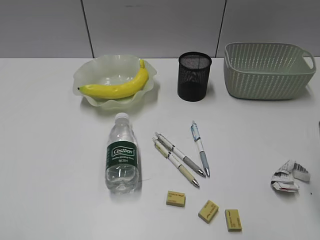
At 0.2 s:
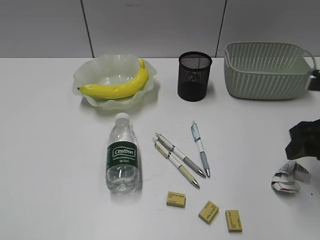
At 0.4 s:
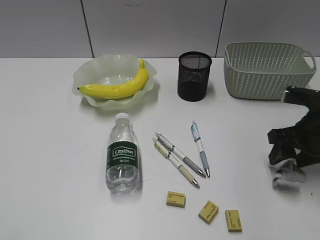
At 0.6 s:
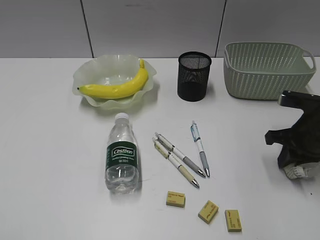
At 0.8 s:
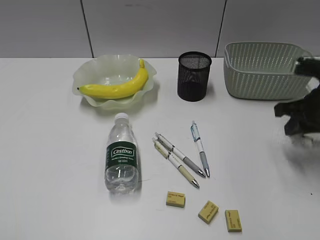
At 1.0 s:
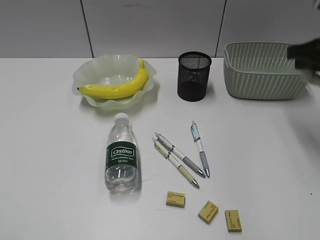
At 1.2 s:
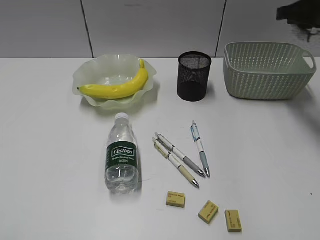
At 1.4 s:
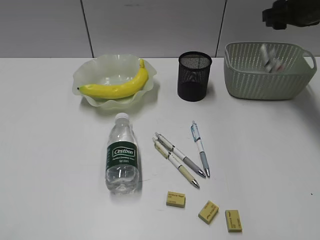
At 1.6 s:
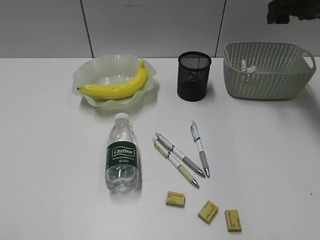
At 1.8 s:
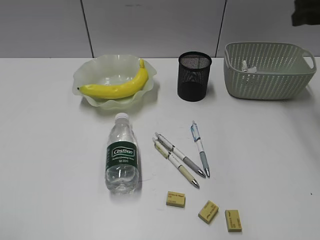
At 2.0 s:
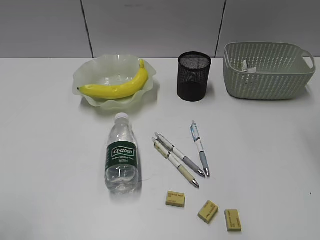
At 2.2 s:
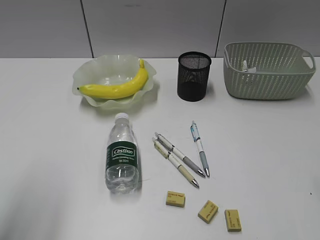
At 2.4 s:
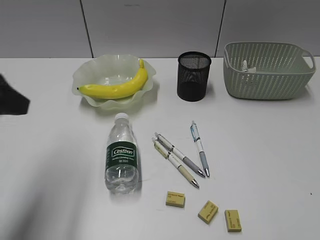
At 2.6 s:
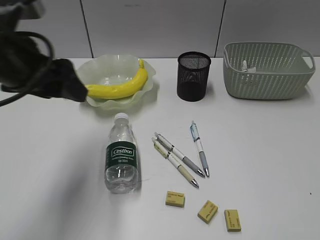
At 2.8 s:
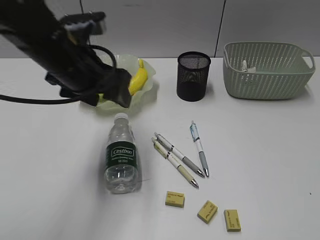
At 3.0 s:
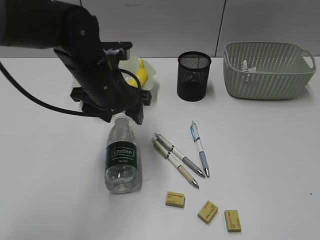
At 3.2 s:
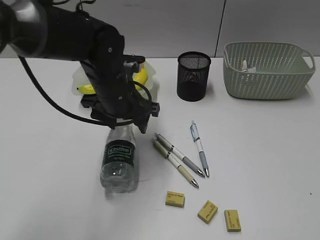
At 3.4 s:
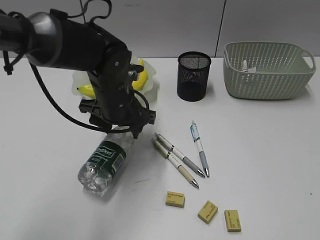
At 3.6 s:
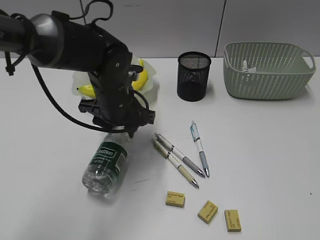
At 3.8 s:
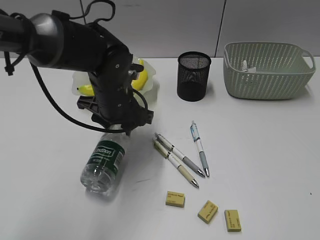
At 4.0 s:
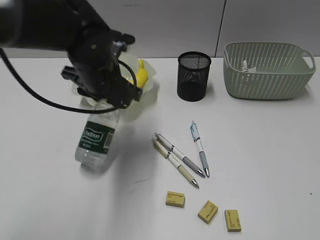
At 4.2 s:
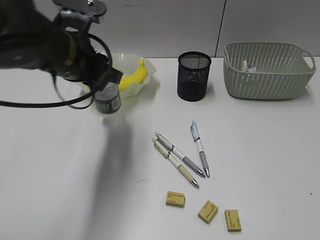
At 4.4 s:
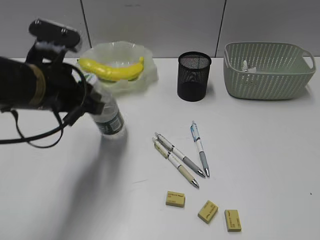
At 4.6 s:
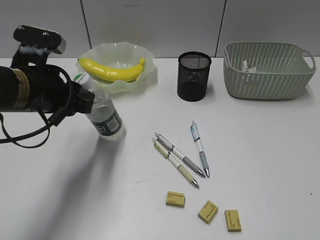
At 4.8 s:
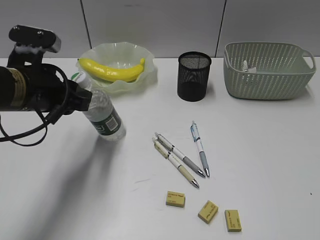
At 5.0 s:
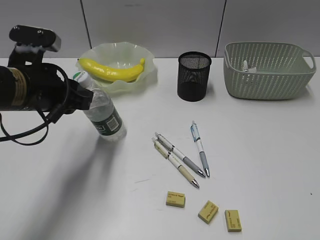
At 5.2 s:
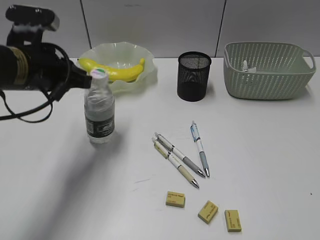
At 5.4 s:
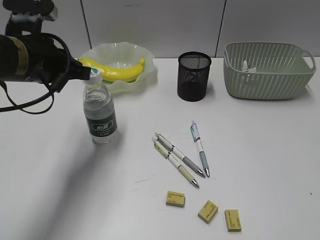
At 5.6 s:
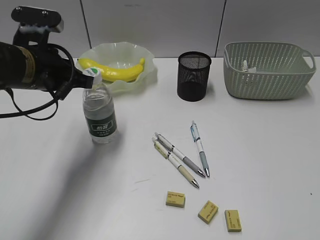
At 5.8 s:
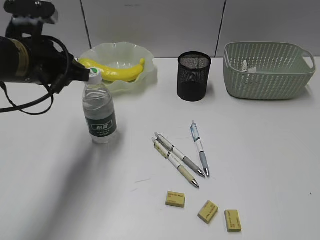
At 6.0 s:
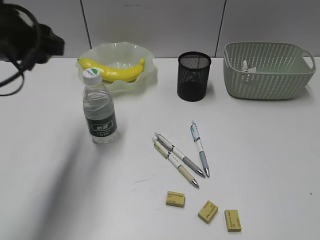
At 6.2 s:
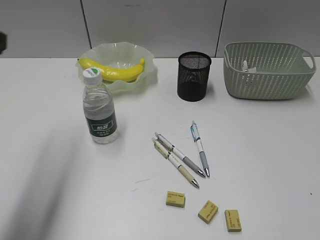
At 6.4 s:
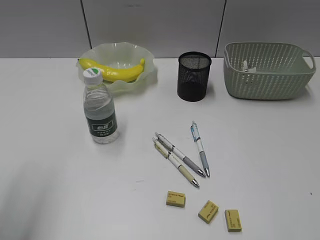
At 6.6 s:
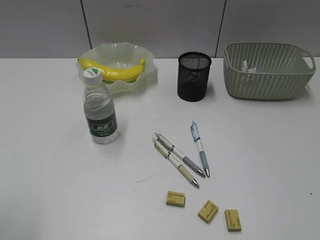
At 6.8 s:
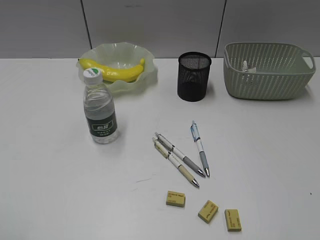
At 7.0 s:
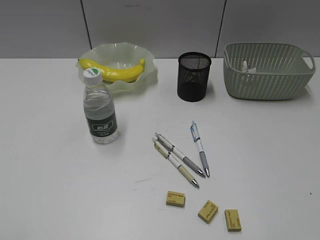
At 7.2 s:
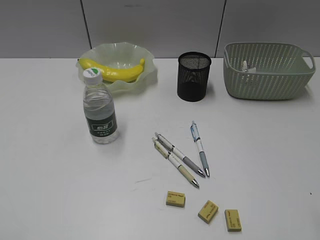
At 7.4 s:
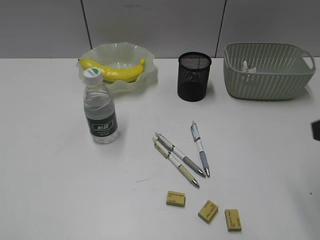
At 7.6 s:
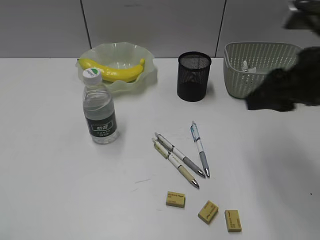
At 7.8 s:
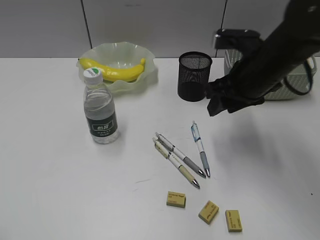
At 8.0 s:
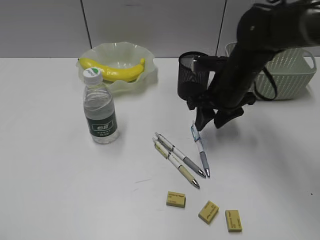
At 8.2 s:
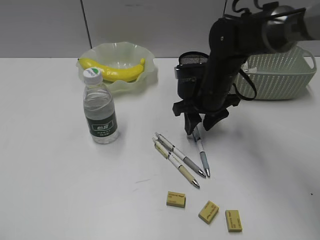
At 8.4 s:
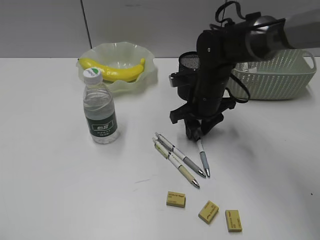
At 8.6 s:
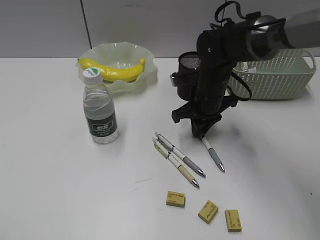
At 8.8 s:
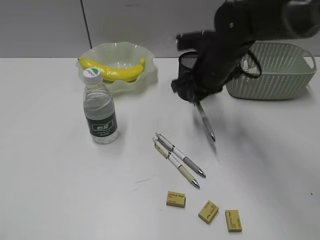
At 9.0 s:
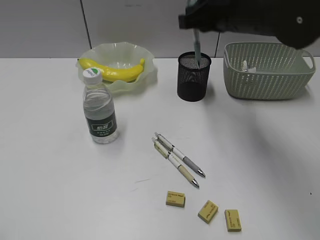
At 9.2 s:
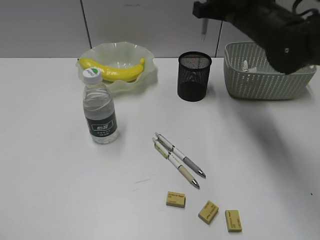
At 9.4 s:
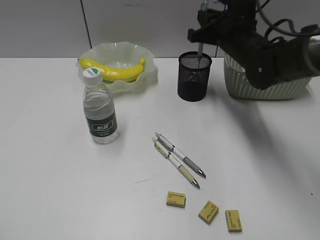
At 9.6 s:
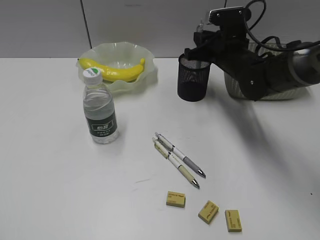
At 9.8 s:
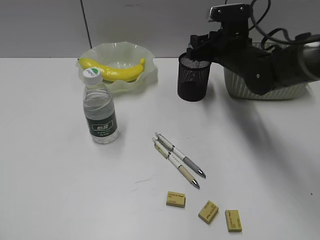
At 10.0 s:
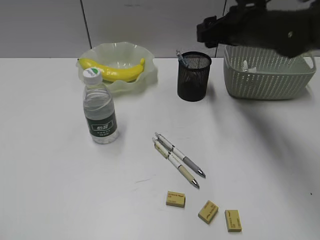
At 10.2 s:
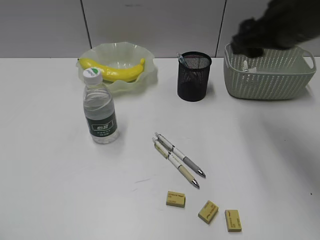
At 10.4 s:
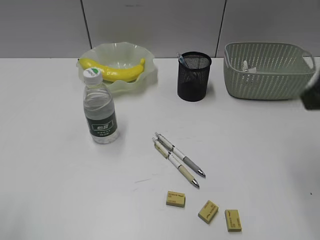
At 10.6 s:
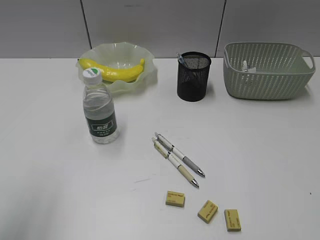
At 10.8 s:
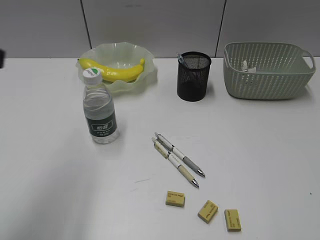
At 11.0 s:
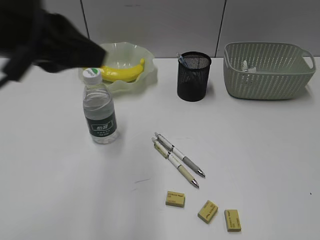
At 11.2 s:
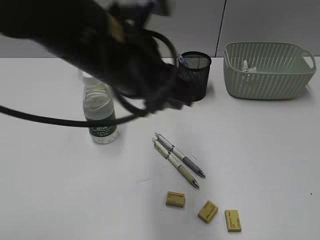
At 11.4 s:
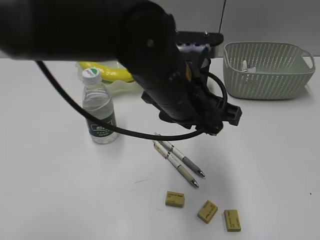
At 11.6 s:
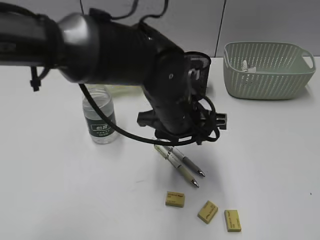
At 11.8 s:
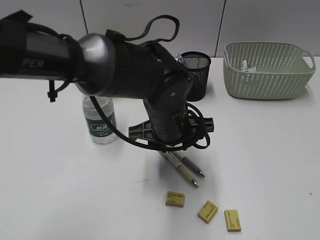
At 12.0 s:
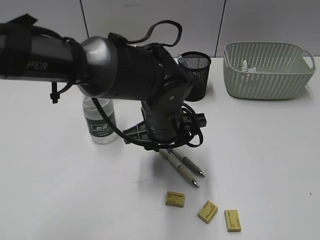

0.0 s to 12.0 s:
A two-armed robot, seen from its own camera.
Step, 0.8 to 1.4 s: Place the waste paper in the basket with right gripper.
Step, 1.6 to 3.6 s: Grasp the bottle with left gripper.
Step, 3.8 to 5.4 s: Stand the bottle with left gripper.
Step, 5.6 to 8.4 s: Grasp the blue pen with right gripper.
Step, 8.6 to 9.8 s: Place the blue pen in pen holder with right gripper.
0.0 to 1.6 s: The right gripper heads forward, covering about 30 cm, and closes and opens again.
1.6 to 3.0 s: The left gripper is displaced forward and to the right by approximately 40 cm, and opens up; the right gripper heads backward, covering some 50 cm.
3.0 to 4.4 s: The left gripper heads to the left and backward, covering approximately 10 cm, goes upward and returns, about 5 cm each way, and closes its fingers.
4.4 to 6.0 s: The left gripper goes about 5 cm upward, and closes, then reopens.
6.0 to 7.6 s: The right gripper shifts roughly 25 cm forward, while the left gripper moves backward and to the left, roughly 30 cm.
7.6 to 9.0 s: The right gripper moves forward and to the left, some 15 cm, moves about 15 cm downward and comes back, and closes.
9.0 to 10.4 s: The right gripper goes some 20 cm backward and to the right, and opens.
10.4 to 12.0 s: The left gripper goes roughly 40 cm to the right, forward and downward; the right gripper shifts about 25 cm backward.

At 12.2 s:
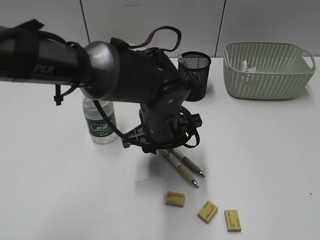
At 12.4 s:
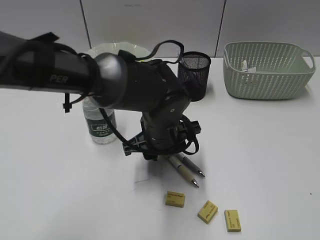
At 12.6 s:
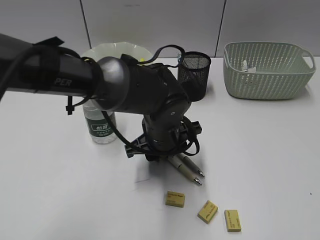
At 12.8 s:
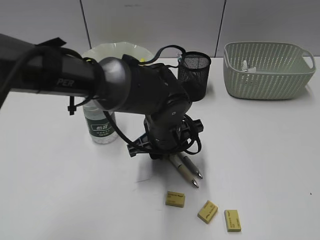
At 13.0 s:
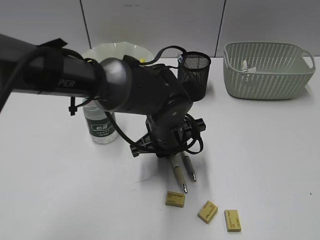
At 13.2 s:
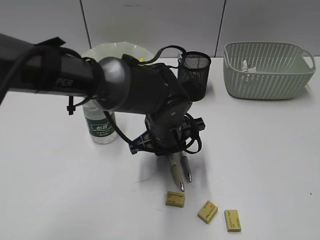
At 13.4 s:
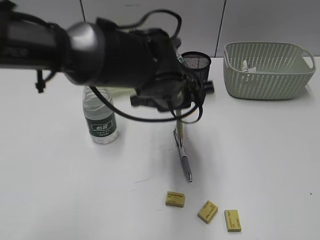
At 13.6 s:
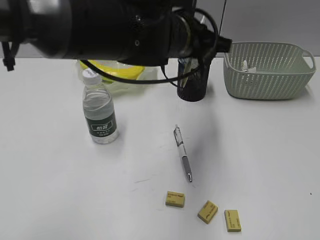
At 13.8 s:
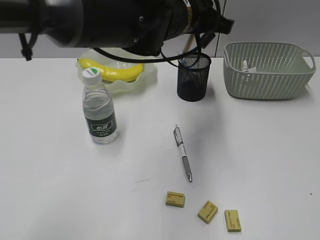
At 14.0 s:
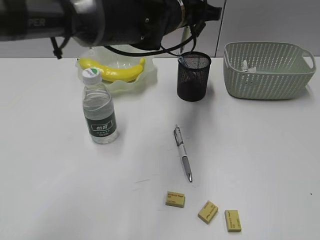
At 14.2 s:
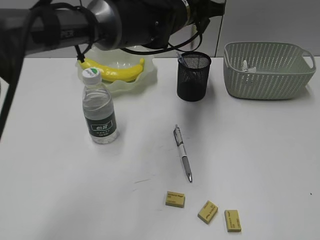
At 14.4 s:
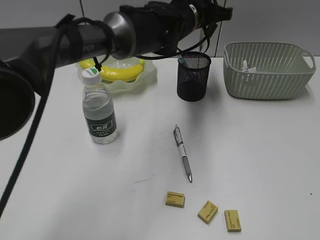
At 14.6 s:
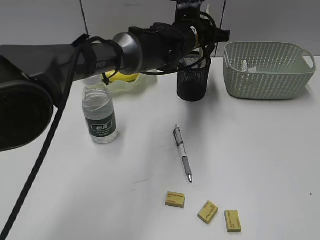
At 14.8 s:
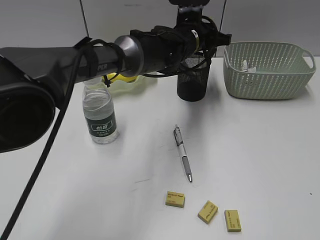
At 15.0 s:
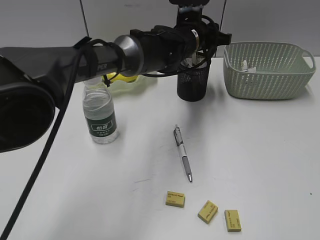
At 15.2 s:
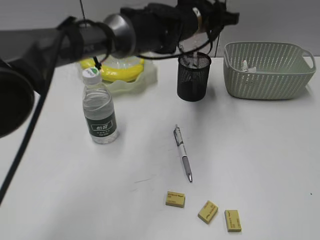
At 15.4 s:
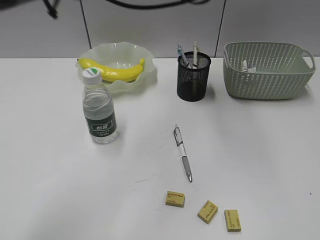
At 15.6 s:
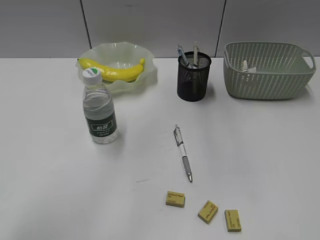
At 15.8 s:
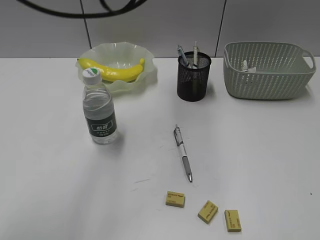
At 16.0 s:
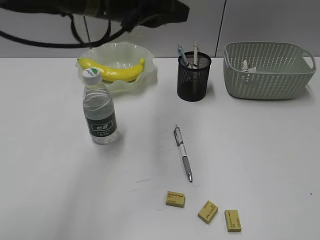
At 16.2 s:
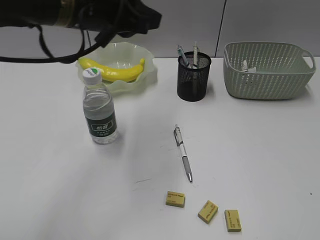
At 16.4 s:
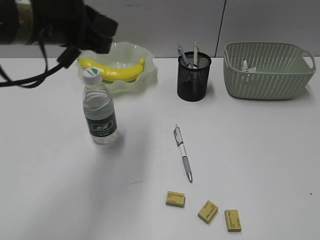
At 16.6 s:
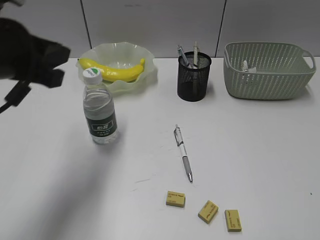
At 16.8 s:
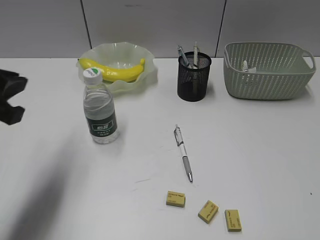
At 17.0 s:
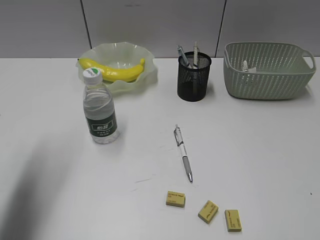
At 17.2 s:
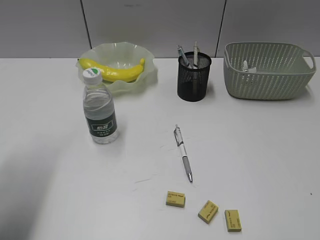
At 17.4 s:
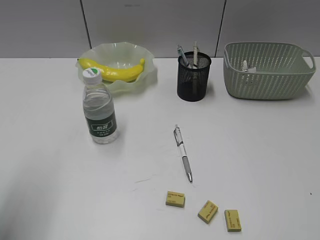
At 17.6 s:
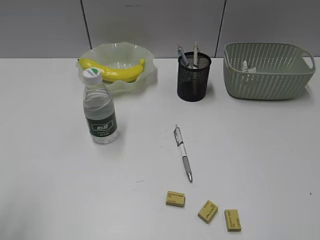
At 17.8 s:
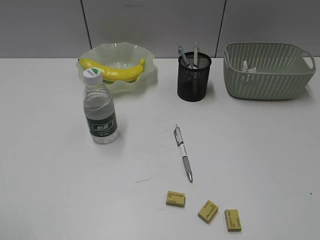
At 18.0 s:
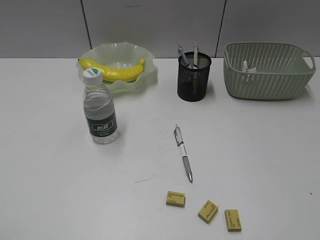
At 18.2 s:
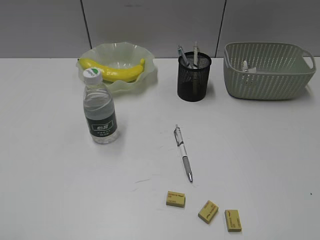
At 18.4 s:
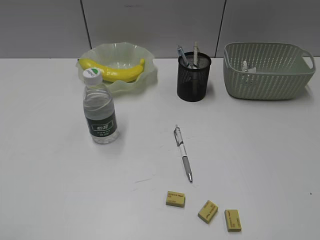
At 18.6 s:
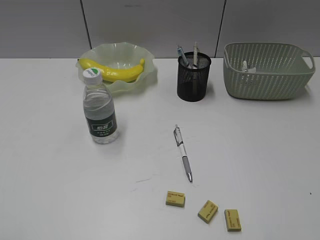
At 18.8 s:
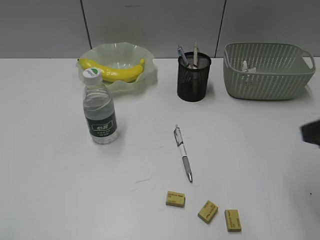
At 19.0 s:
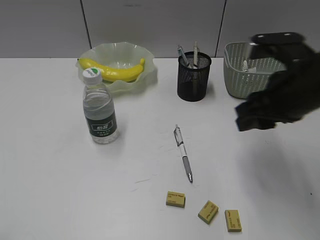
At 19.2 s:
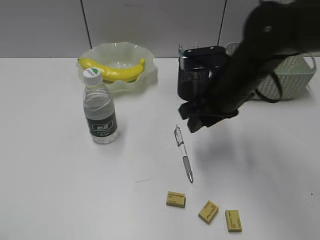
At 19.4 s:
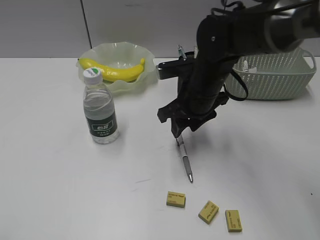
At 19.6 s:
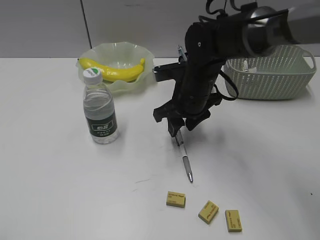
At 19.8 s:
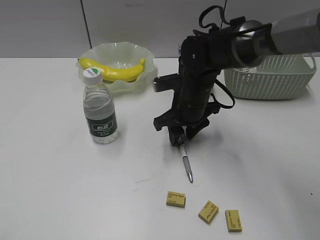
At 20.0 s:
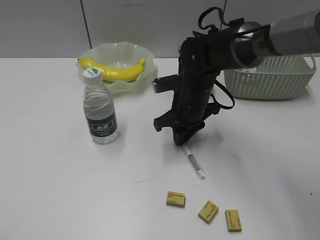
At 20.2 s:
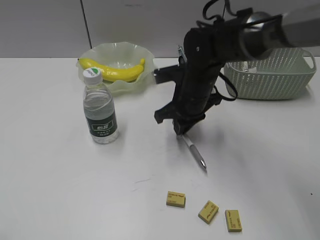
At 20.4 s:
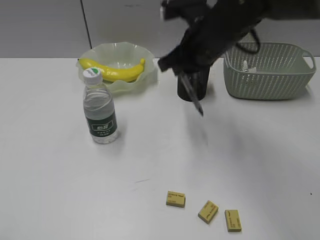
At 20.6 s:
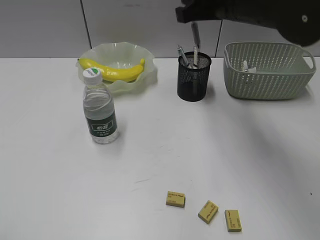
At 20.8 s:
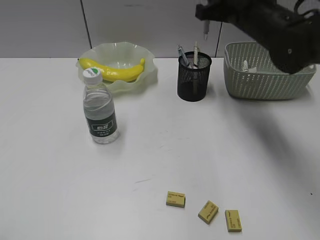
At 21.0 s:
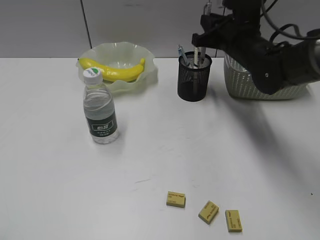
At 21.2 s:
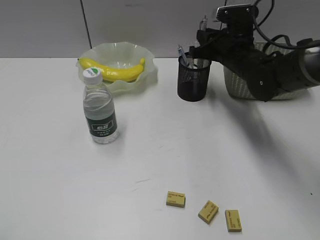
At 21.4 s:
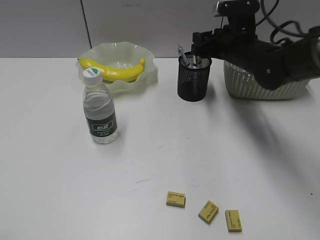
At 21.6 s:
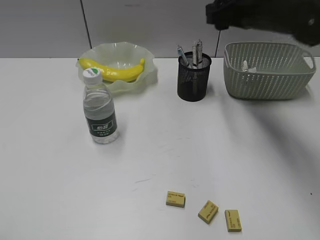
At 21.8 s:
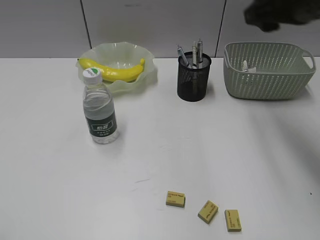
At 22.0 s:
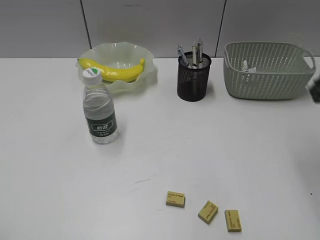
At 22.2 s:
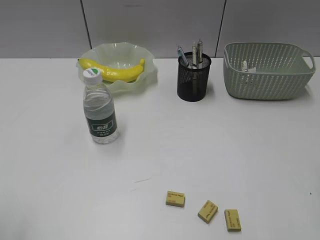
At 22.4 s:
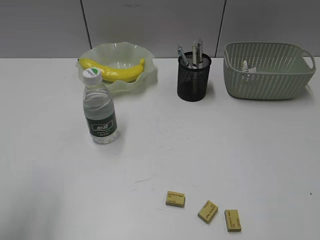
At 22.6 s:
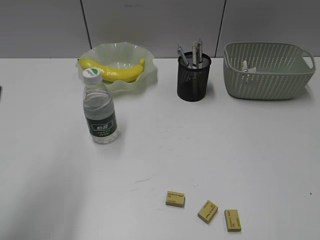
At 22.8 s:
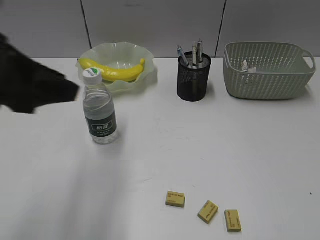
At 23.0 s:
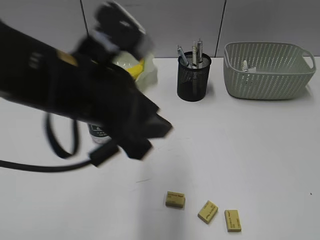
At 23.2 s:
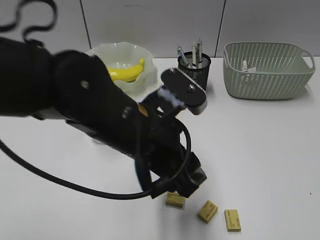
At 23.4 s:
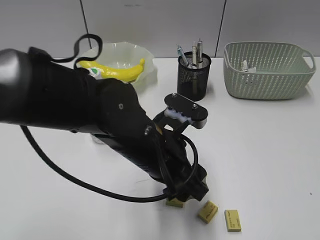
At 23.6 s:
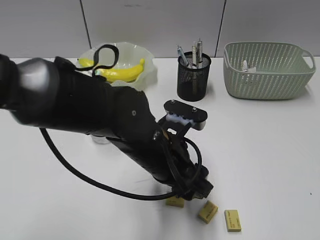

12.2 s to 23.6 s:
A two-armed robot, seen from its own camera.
Step, 13.2 to 15.0 s: Place the yellow pen in pen holder with left gripper.
Step, 15.2 to 20.0 s: Grasp the gray pen with right gripper.
Step, 20.2 to 21.4 s: Place the gray pen in pen holder with right gripper.
12.2 to 13.6 s: The left gripper is displaced upward by about 10 cm, and closes.
13.6 to 15.0 s: The left gripper travels forward and downward by some 15 cm, and opens.
15.0 to 16.4 s: The left gripper goes some 30 cm to the left, backward and upward, and closes its fingers.
16.4 to 17.8 s: The left gripper shifts approximately 30 cm backward and to the left, and opens up.
17.8 to 19.4 s: The right gripper shifts some 40 cm forward and to the left.
19.4 to 20.8 s: The right gripper heads upward and to the right, covering approximately 10 cm, and closes.
20.8 to 22.2 s: The right gripper goes roughly 25 cm backward and to the right, and opens up.
22.2 to 23.6 s: The left gripper travels to the right, forward and downward by about 40 cm, and opens, while the right gripper shifts roughly 15 cm backward.
